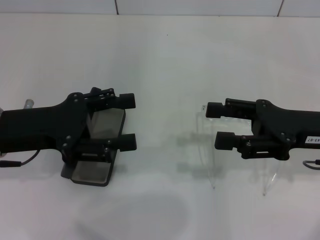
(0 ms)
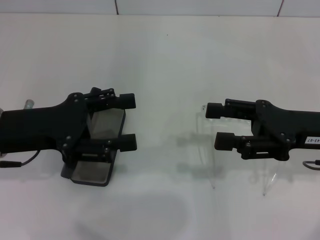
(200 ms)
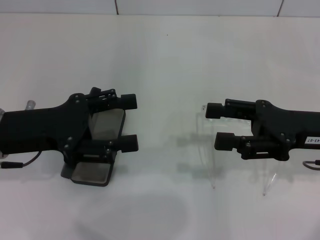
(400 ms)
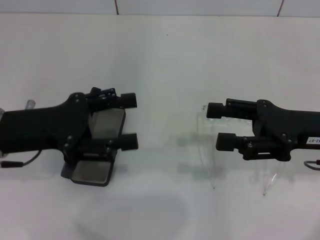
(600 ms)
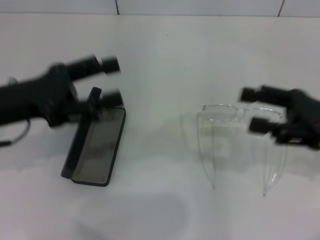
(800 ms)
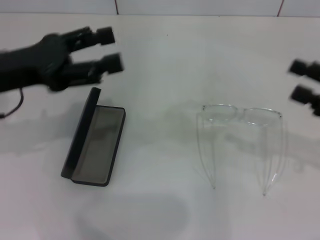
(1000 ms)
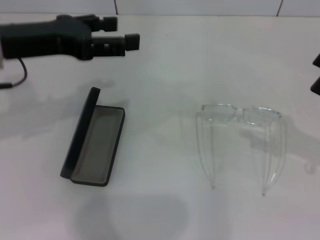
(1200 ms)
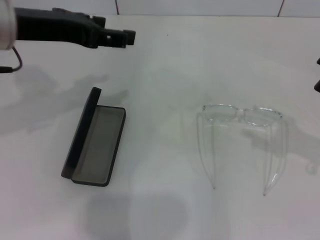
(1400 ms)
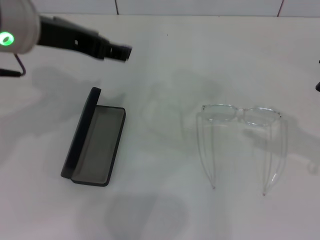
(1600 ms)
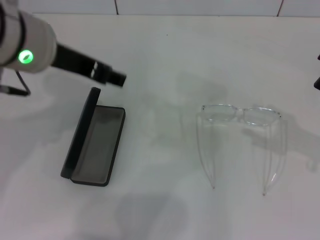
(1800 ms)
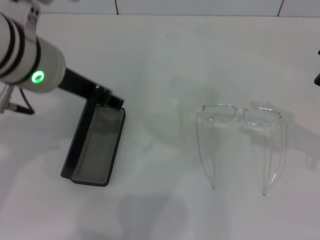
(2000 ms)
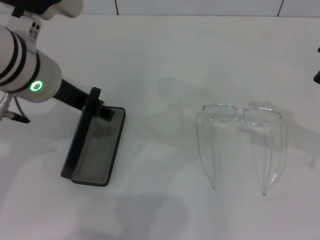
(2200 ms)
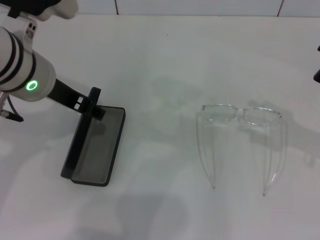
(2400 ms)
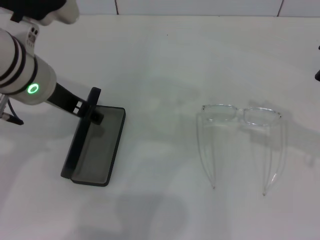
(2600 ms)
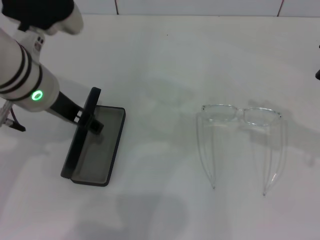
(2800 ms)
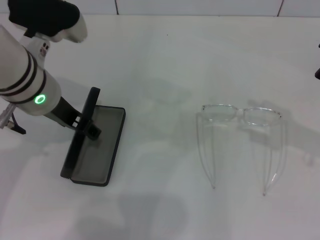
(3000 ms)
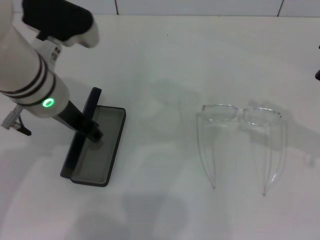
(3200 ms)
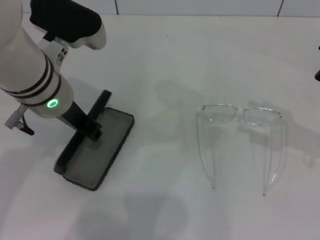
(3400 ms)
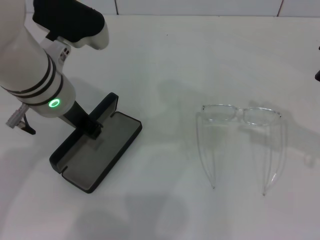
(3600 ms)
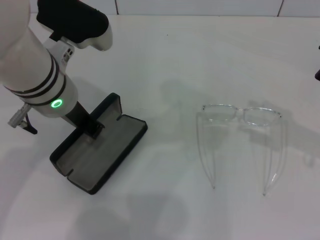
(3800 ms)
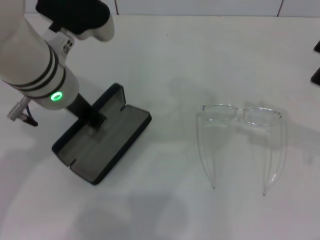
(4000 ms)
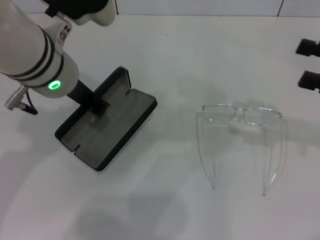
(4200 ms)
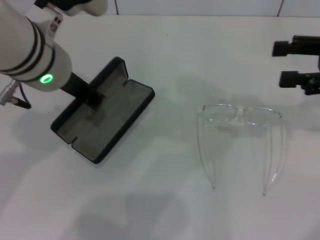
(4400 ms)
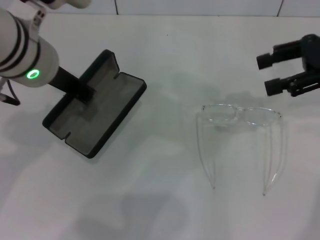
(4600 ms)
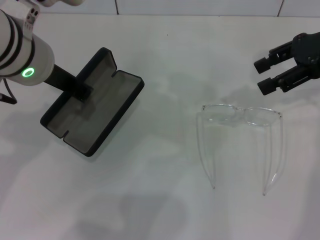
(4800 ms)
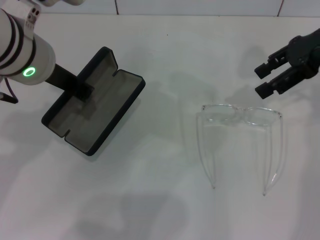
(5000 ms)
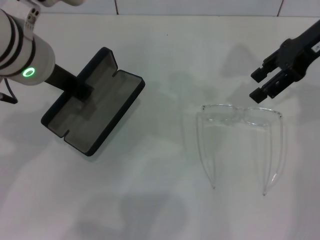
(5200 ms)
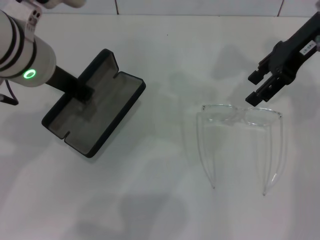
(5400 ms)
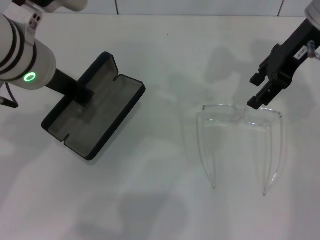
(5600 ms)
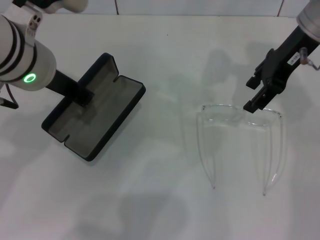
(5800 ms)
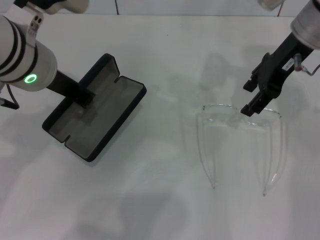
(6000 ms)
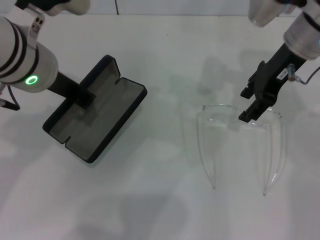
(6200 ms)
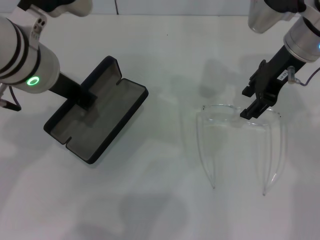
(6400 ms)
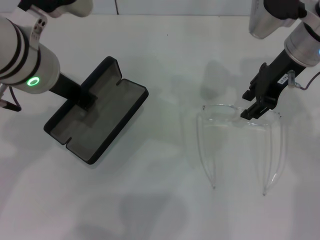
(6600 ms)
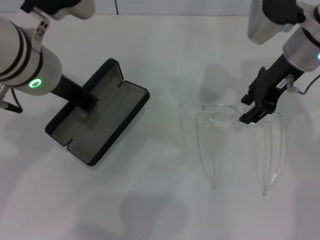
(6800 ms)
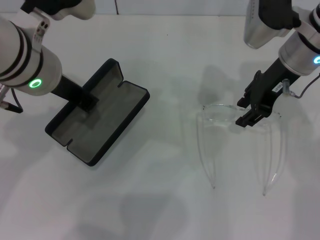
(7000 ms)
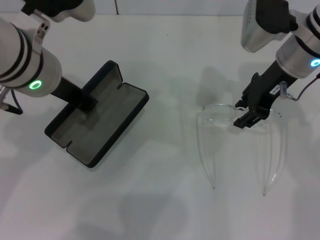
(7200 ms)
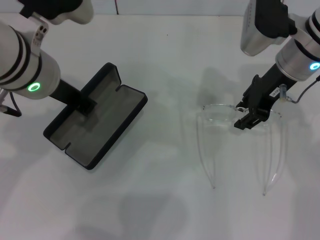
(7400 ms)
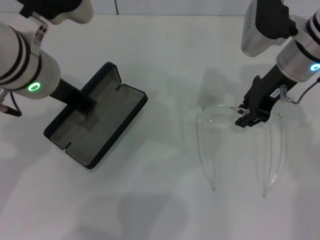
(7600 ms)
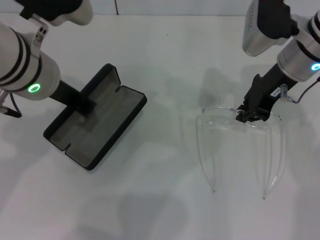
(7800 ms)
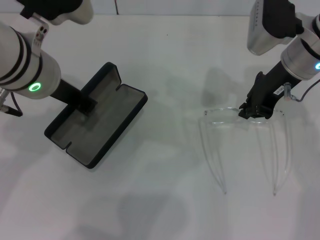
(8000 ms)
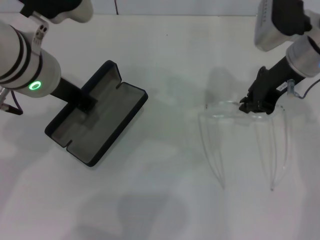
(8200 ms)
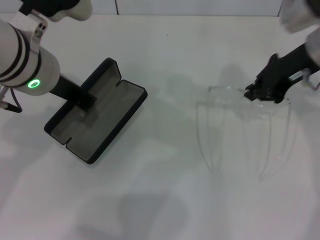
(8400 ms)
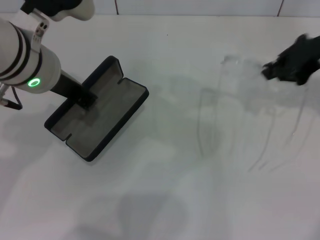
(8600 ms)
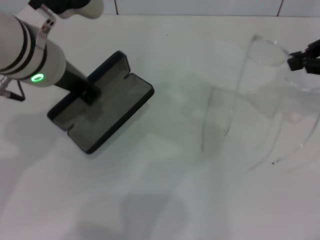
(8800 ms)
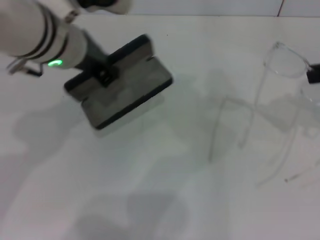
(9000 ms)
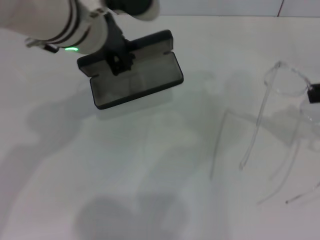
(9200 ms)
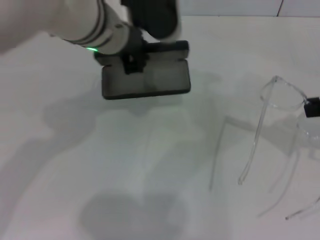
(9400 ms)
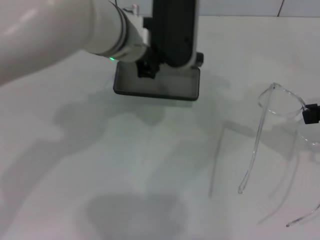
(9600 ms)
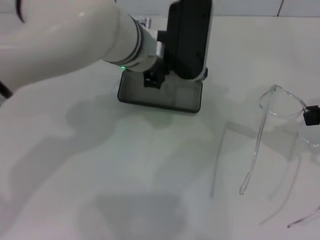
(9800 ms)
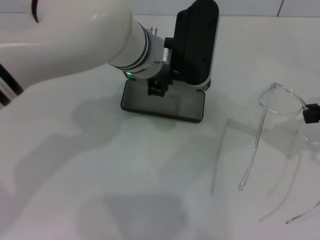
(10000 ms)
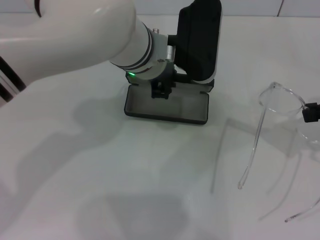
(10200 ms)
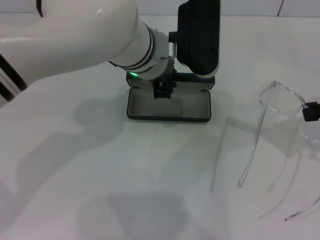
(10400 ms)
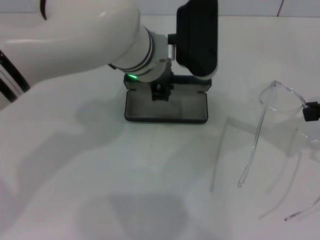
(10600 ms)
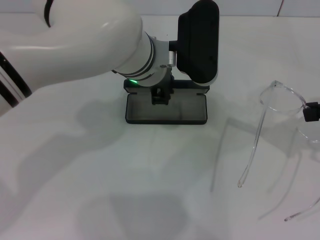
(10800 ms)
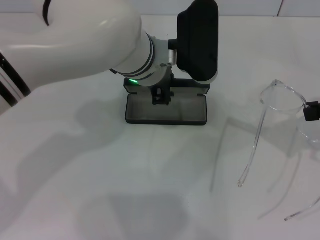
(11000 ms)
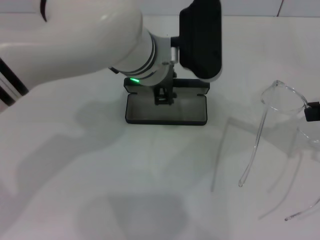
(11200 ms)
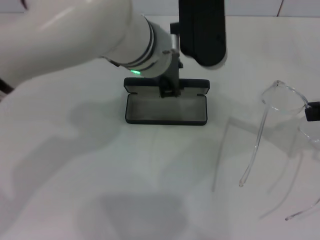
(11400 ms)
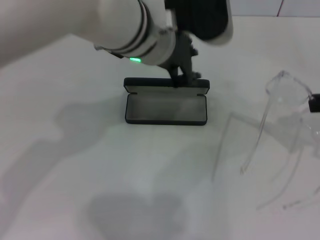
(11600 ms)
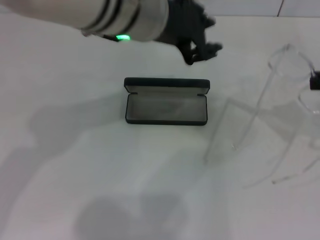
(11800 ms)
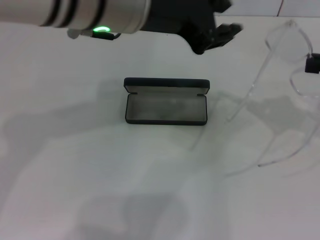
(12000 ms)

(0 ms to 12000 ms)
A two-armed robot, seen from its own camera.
Step, 0 ms - 3600 ms: Grab the glasses case with your left hand.
Step, 4000 ms - 8000 ms: Grab the eyeglass frame with your right hand.
Step, 8200 ms - 11200 ms: Place the glasses case in the center of the table with your left hand.
0 ms - 1600 ms: The right gripper heads to the right, covering about 10 cm, while the left gripper shifts about 15 cm upward and to the right.
1600 ms - 3000 ms: The left gripper moves downward, roughly 10 cm.
3000 ms - 4400 ms: The right gripper is displaced forward and upward by some 10 cm. Meanwhile the left gripper closes its fingers.
4400 ms - 6000 ms: The right gripper goes about 15 cm to the left and forward.
6000 ms - 7600 ms: The right gripper closes.
7600 ms - 9000 ms: The right gripper moves to the right and backward, some 20 cm, and closes its fingers.
9000 ms - 10400 ms: The left gripper is displaced to the right and downward by approximately 10 cm.
10400 ms - 12000 ms: The left gripper goes approximately 15 cm upward and backward.

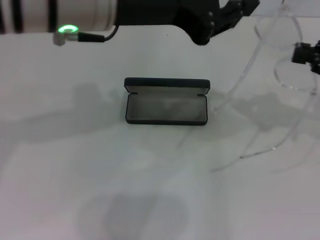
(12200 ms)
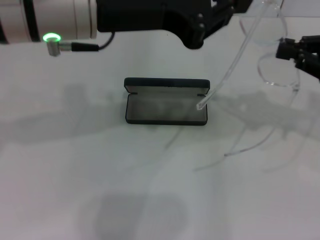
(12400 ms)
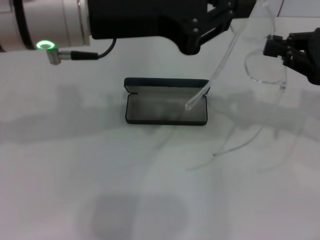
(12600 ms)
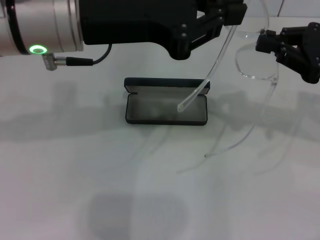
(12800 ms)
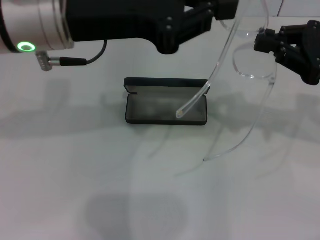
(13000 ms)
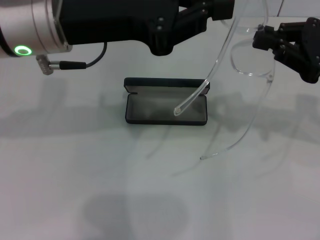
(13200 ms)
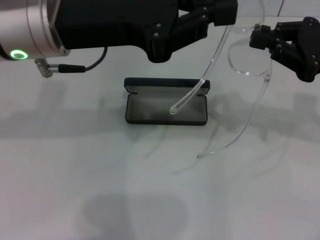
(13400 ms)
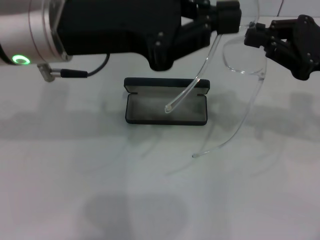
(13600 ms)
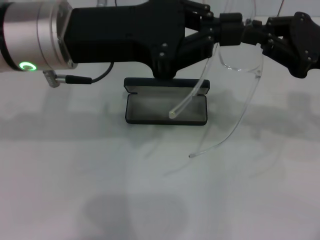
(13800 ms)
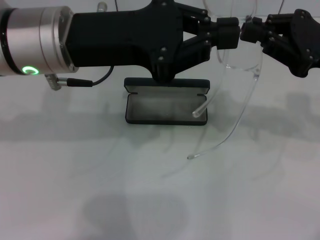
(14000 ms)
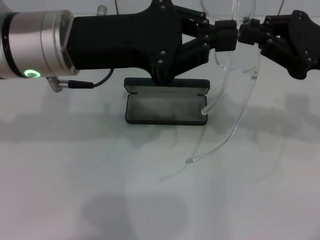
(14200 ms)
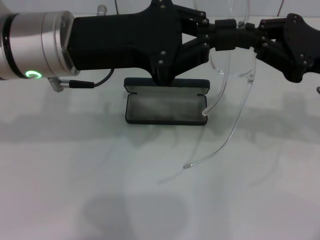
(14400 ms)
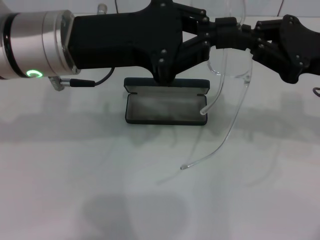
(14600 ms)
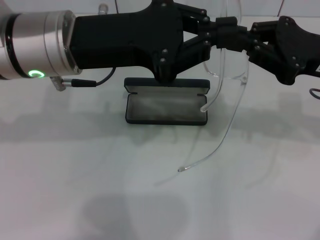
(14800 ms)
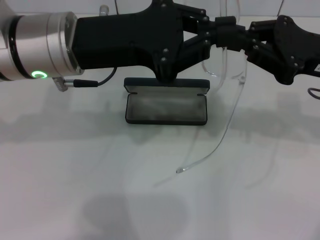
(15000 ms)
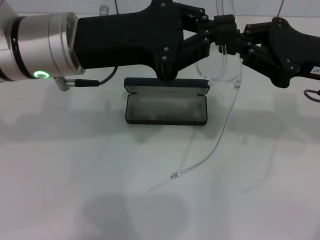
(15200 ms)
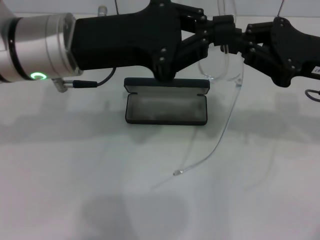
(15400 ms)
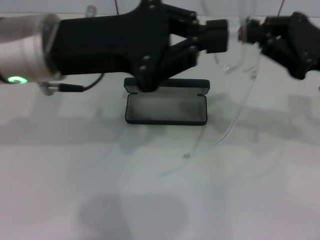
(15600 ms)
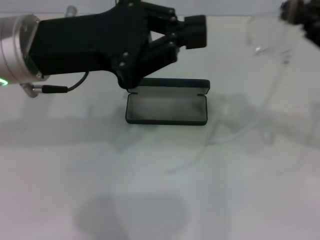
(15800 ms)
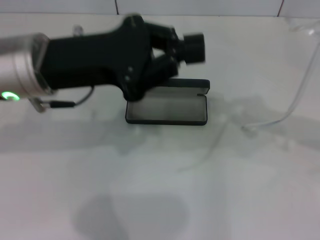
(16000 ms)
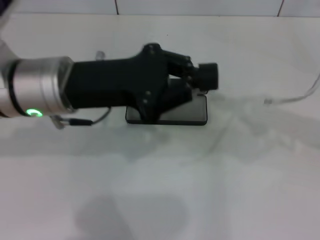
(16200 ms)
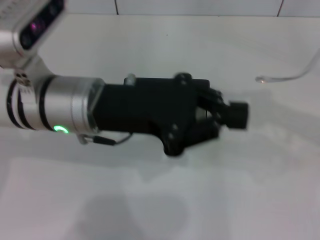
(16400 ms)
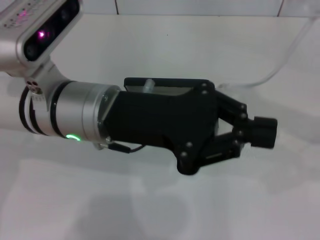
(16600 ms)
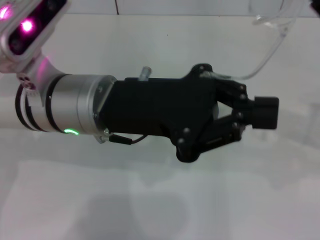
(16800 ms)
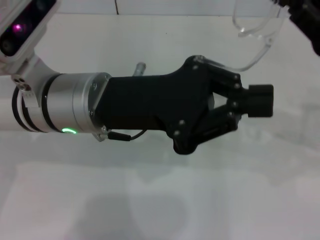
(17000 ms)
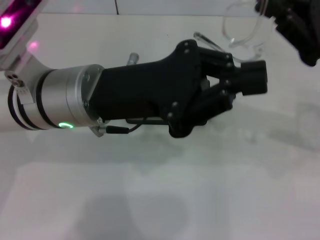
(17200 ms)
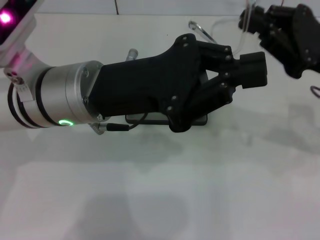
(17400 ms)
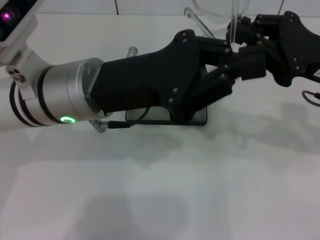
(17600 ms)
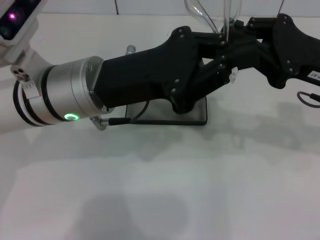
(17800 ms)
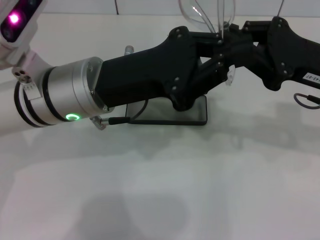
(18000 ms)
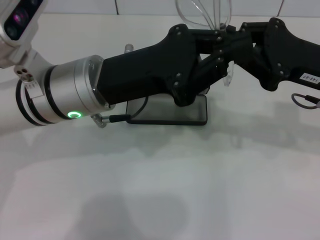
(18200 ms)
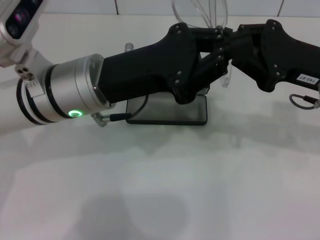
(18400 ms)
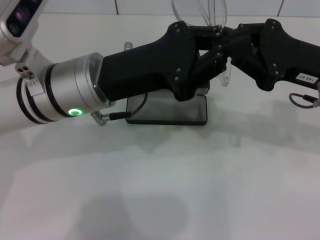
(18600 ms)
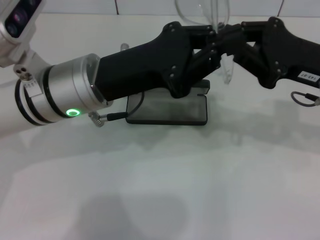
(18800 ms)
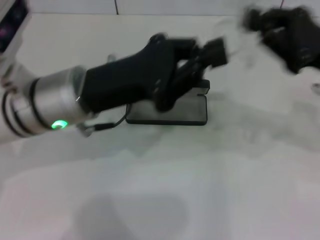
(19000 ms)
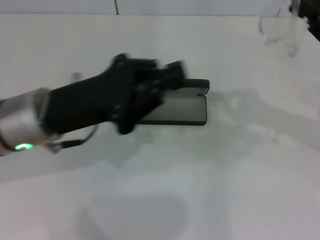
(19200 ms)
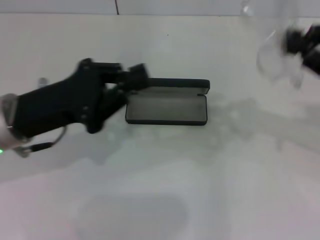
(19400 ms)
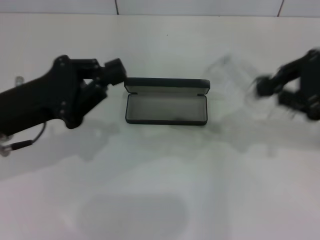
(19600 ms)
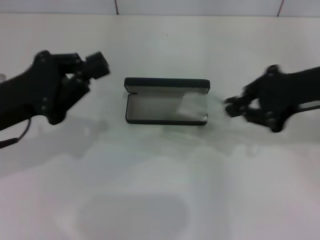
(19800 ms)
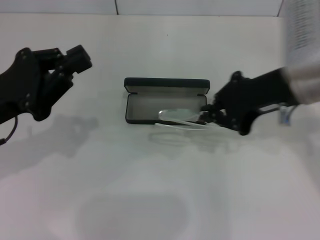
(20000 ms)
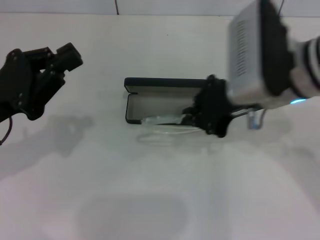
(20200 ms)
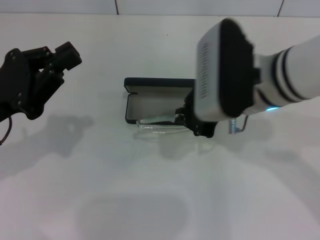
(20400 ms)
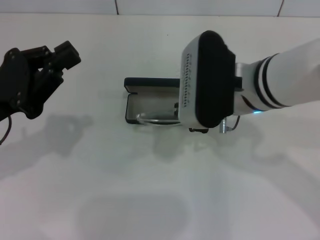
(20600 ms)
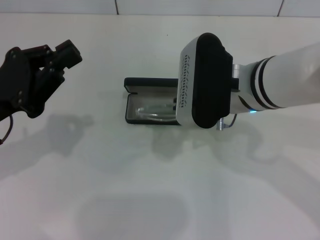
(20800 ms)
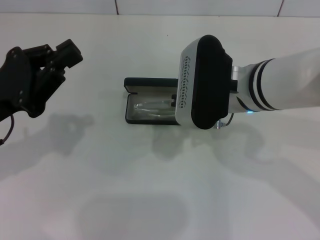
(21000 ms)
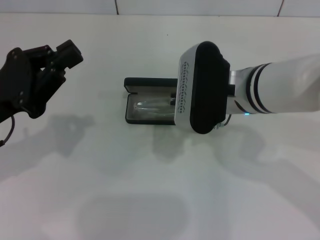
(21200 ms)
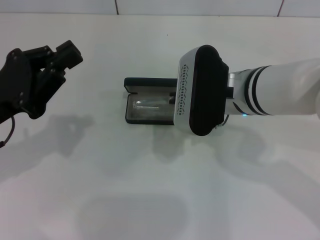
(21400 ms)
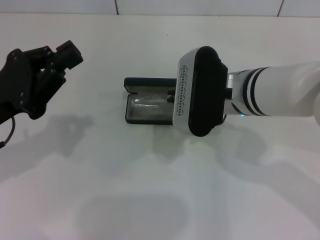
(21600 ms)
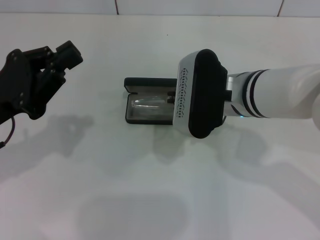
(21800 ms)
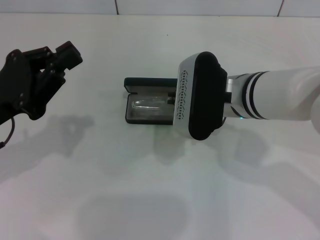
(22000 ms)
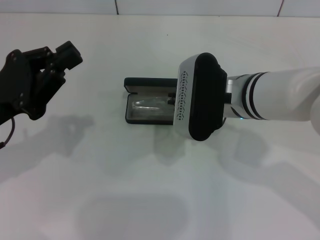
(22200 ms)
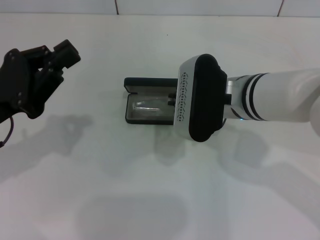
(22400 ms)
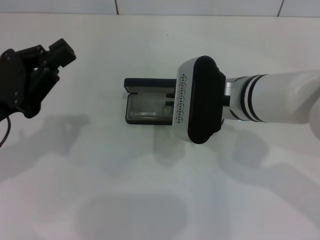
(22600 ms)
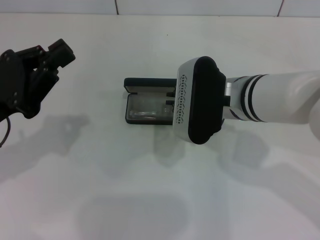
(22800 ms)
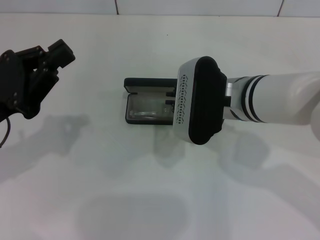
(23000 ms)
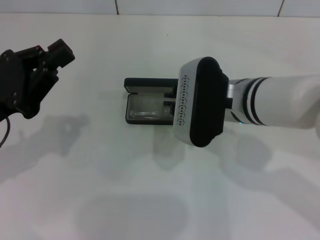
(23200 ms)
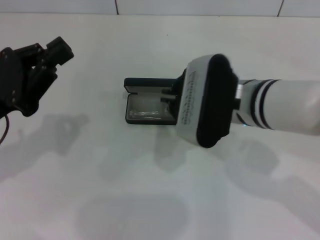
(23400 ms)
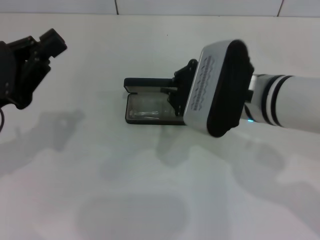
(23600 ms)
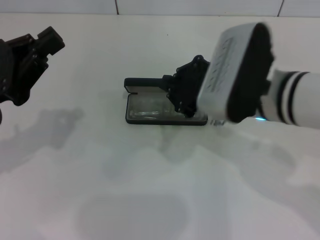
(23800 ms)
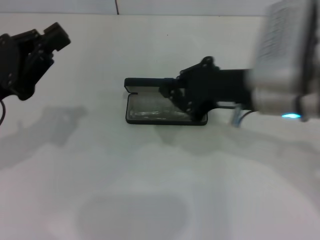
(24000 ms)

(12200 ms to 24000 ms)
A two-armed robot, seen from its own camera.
Step, 12200 ms - 18600 ms: Fold the frame with your left hand.
Step, 18800 ms - 22800 ms: Put the glasses into the case with your right hand.
12200 ms - 13600 ms: The right gripper travels to the left by roughly 5 cm. The left gripper shifts by approximately 5 cm, and closes its fingers.
13600 ms - 15200 ms: The grippers make only small movements.
15200 ms - 16600 ms: The right gripper heads to the right, covering about 5 cm, while the left gripper changes place by about 5 cm.
16600 ms - 18200 ms: The right gripper shifts some 5 cm to the left.
18200 ms - 19600 ms: The right gripper moves upward, roughly 5 cm; the left gripper goes approximately 10 cm to the left.
19600 ms - 21000 ms: The right gripper heads to the left, covering approximately 20 cm.
21000 ms - 22600 ms: There are only small adjustments of the grippers.
22600 ms - 24000 ms: The right gripper moves upward and to the right, approximately 10 cm.
